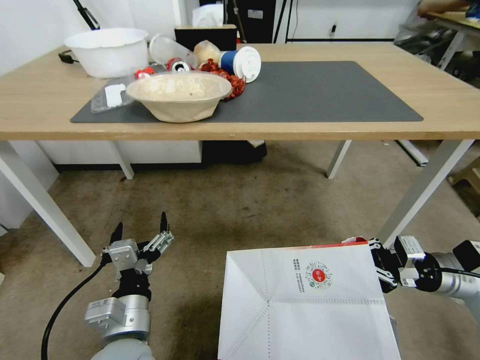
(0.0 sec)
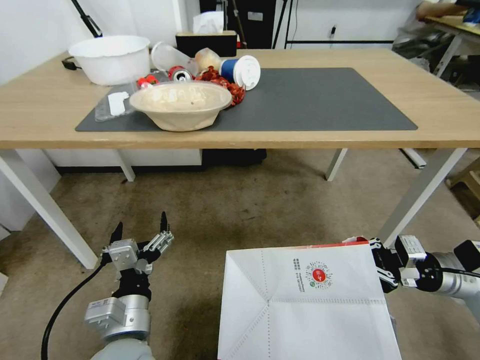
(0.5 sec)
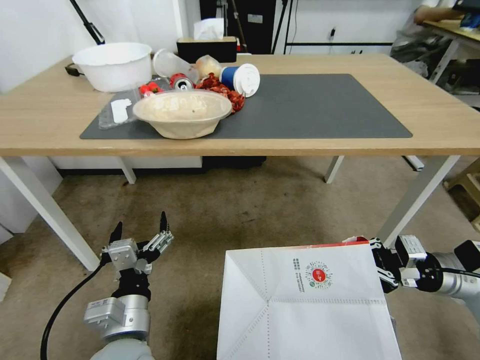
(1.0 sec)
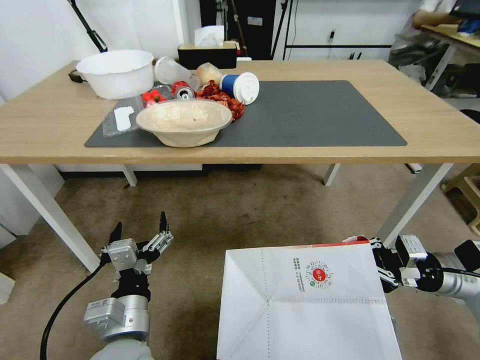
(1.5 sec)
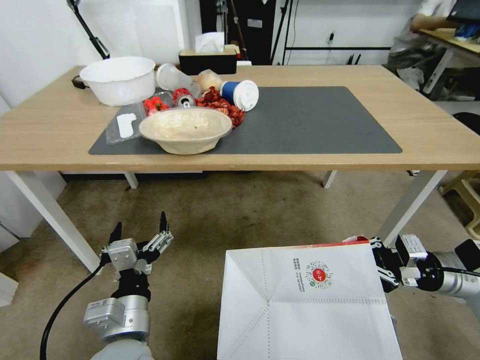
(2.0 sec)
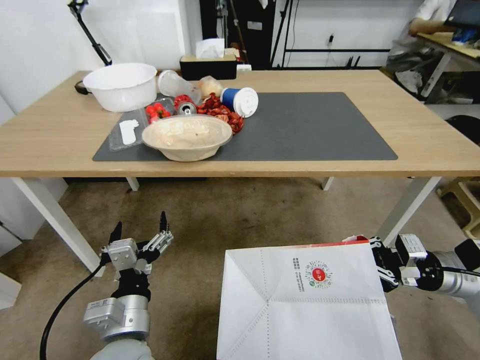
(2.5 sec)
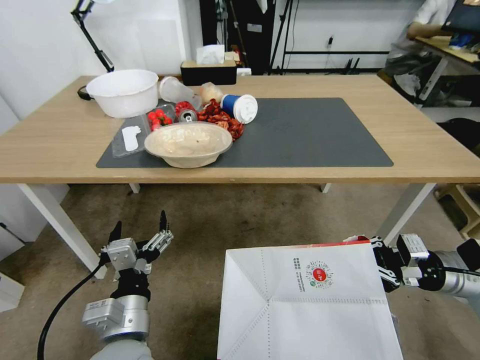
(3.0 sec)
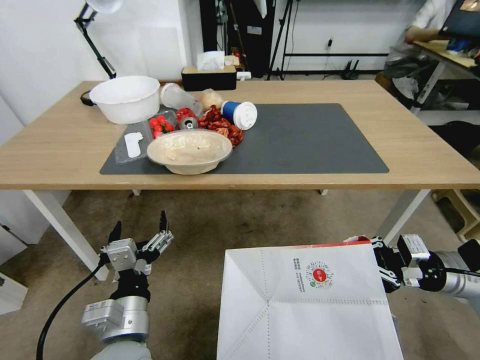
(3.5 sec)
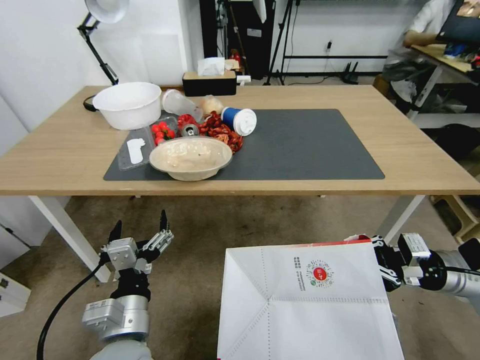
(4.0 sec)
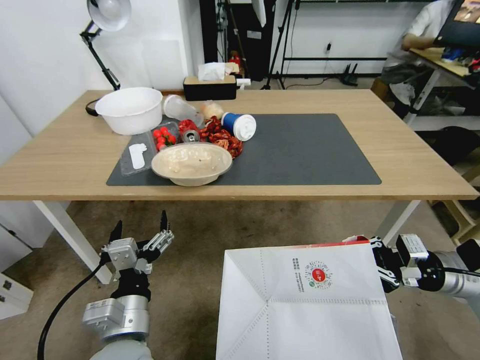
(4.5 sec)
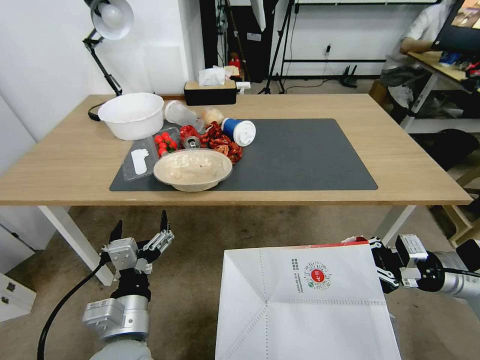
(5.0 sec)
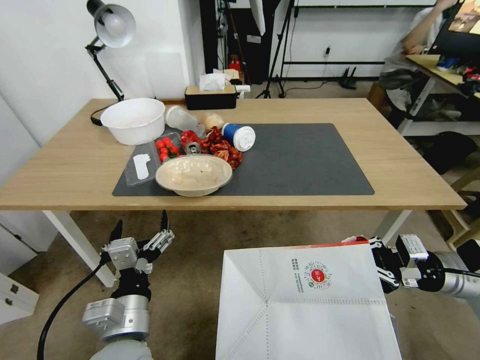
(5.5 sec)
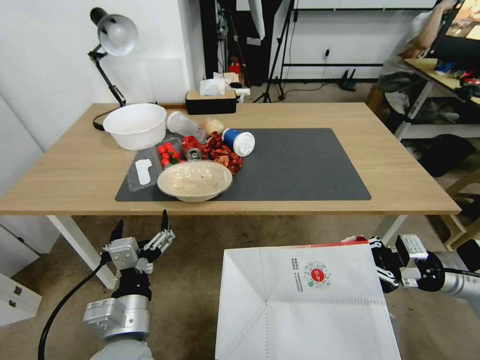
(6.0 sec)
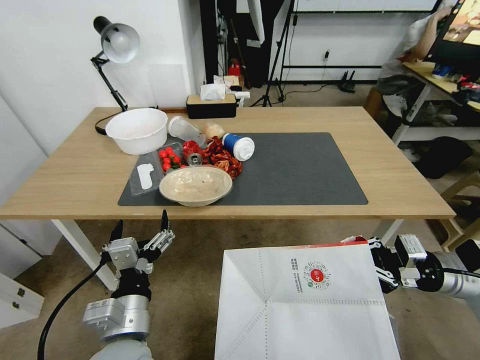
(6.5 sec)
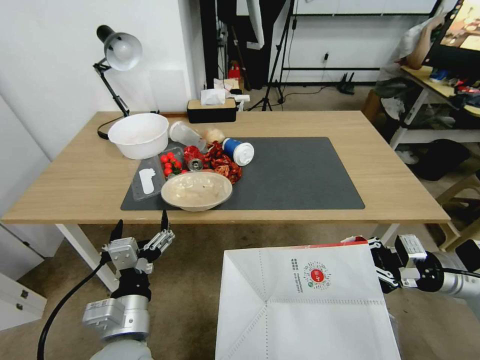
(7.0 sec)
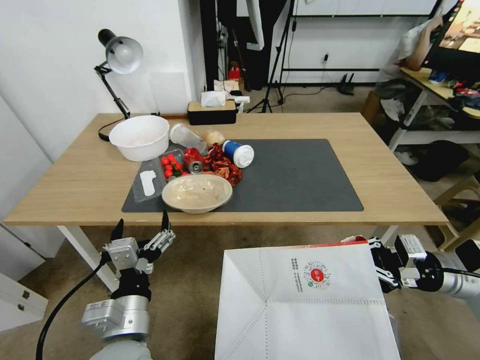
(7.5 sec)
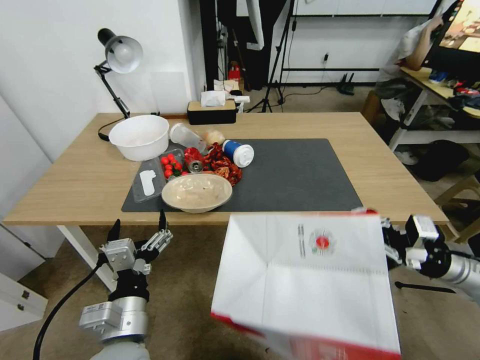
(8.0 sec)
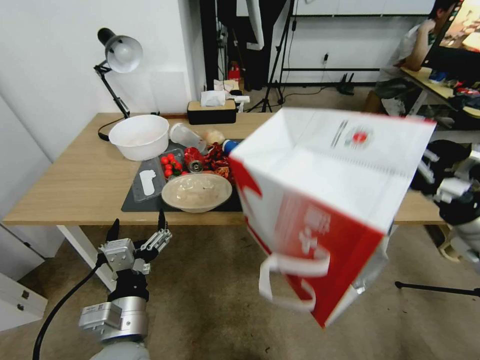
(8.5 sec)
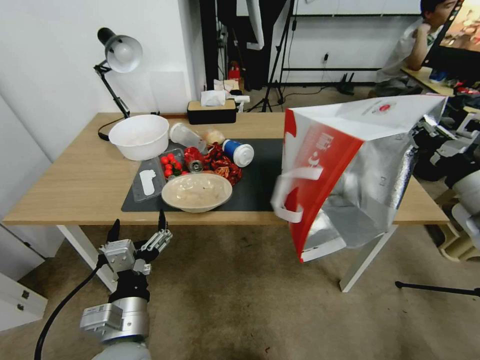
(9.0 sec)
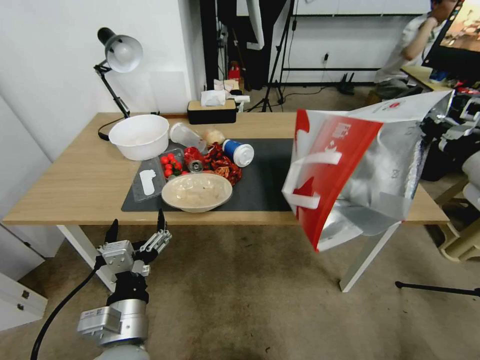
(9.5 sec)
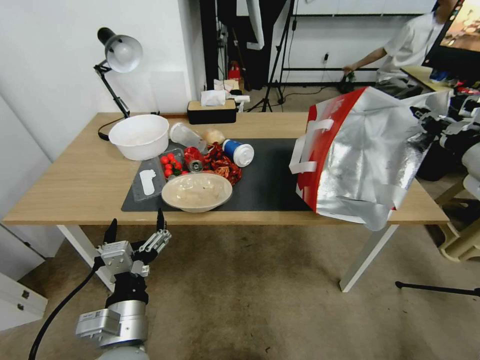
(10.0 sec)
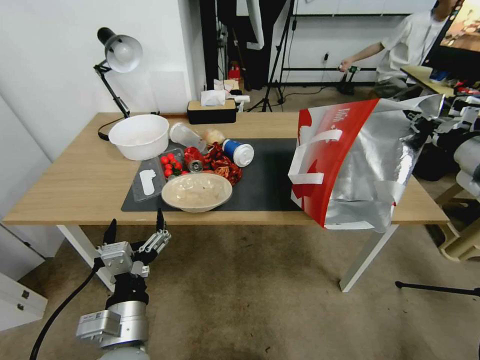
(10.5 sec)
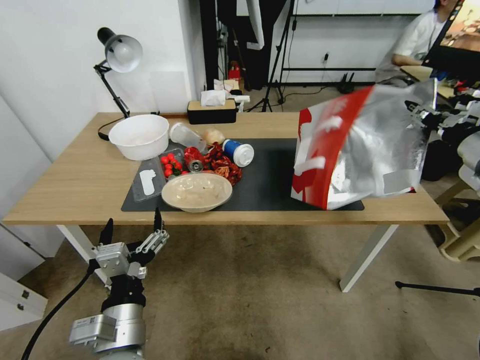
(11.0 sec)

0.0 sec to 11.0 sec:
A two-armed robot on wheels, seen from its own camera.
Task of the whole recording: Pick up the food delivery bag from the floor and place it on the table.
7.5 sec to 9.0 sec: The right gripper moves upward, approximately 15 cm.
9.0 sec to 11.0 sec: The right gripper is displaced forward by some 10 cm.

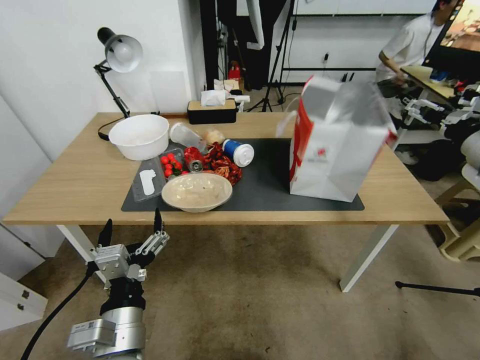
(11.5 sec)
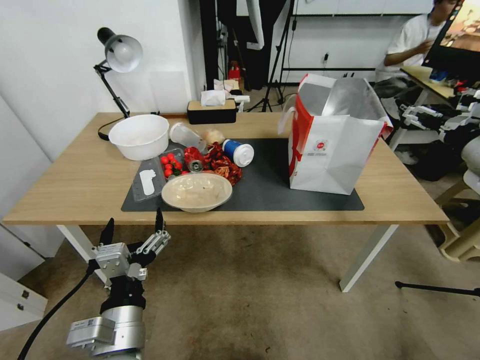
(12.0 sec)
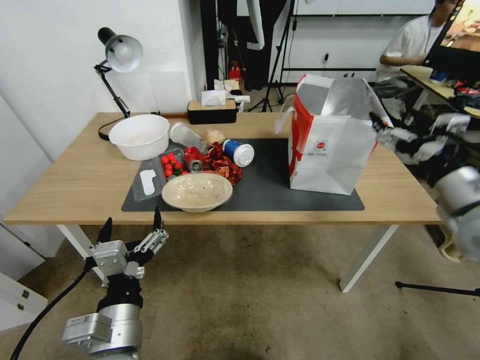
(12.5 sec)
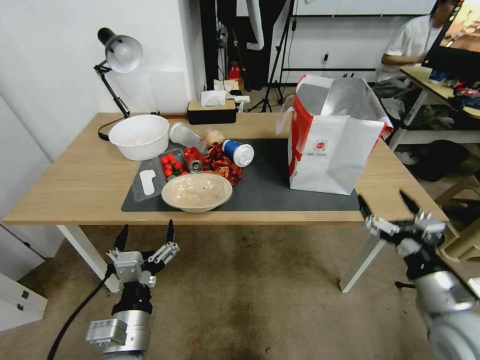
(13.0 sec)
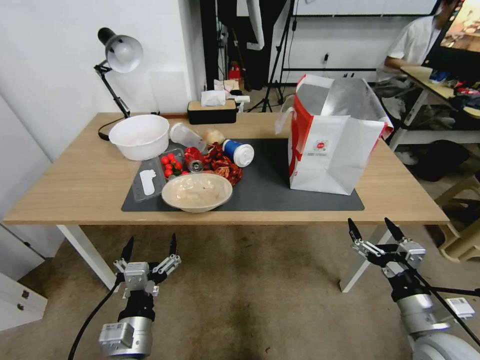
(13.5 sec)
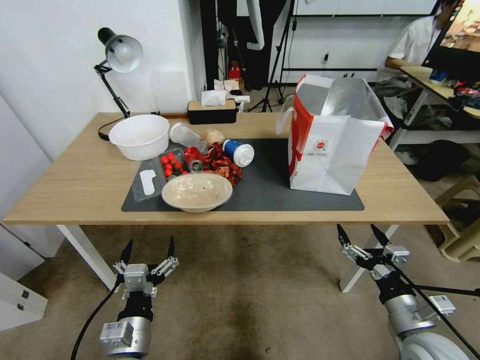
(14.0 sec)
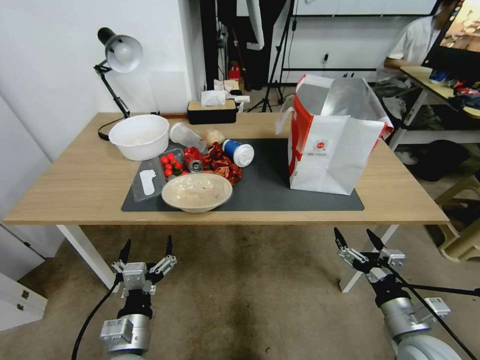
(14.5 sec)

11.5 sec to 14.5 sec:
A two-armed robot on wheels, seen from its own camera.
Task of the whole recording: Pick up the food delivery bag from the floor and place it on the table.
11.5 sec to 13.0 sec: The right gripper travels downward and backward by some 25 cm.
13.0 sec to 14.5 sec: The two grippers go about 10 cm downward.

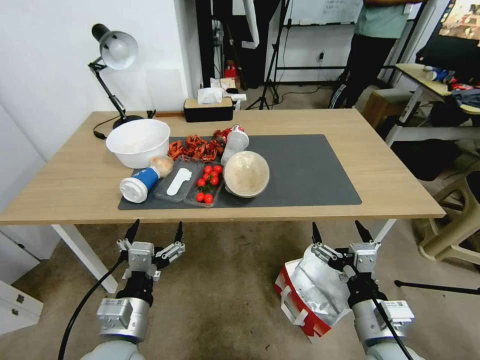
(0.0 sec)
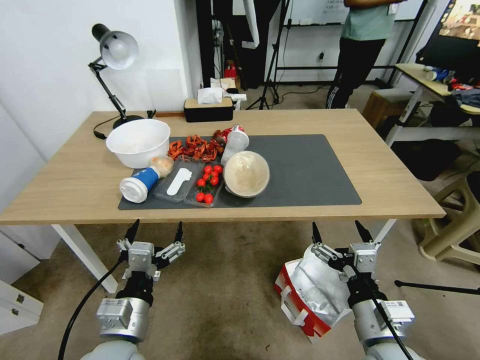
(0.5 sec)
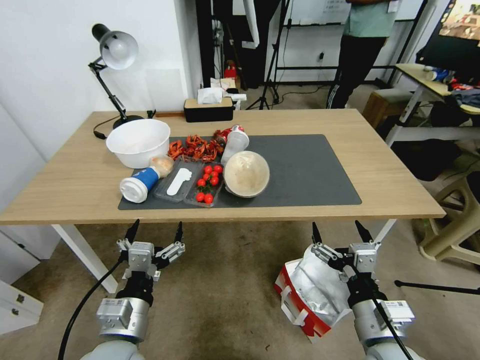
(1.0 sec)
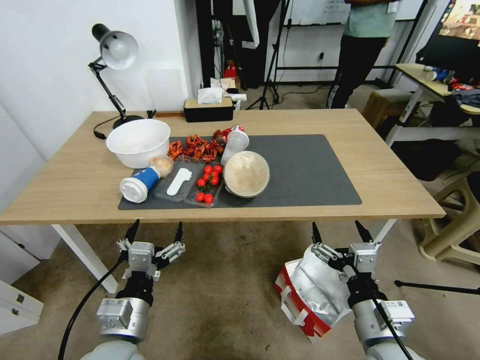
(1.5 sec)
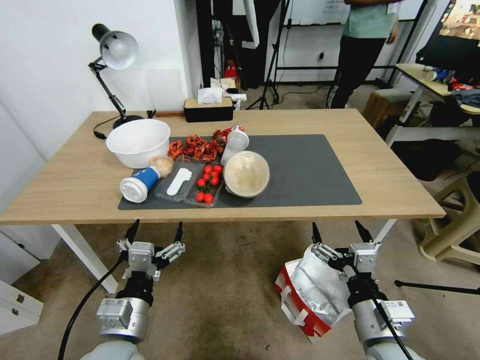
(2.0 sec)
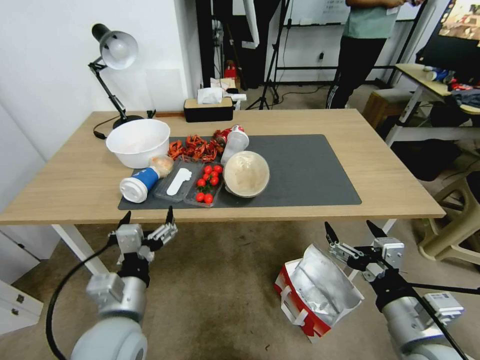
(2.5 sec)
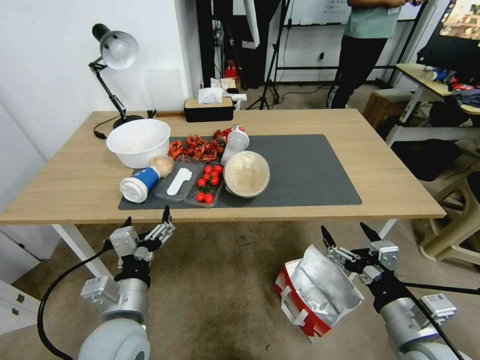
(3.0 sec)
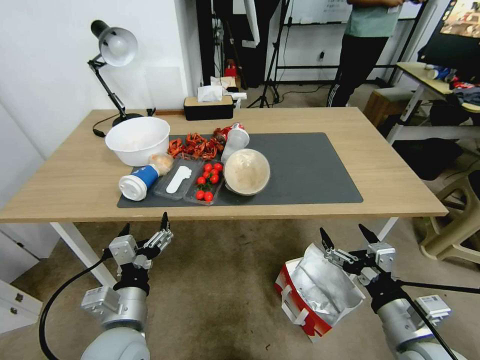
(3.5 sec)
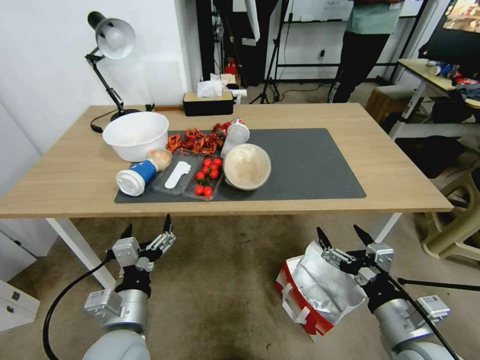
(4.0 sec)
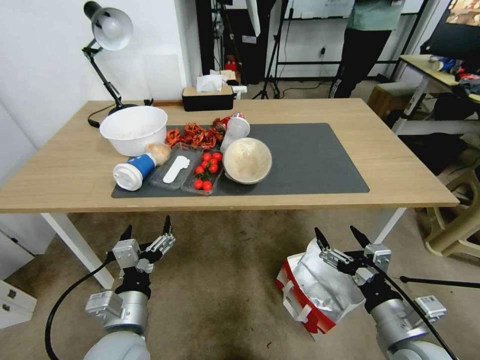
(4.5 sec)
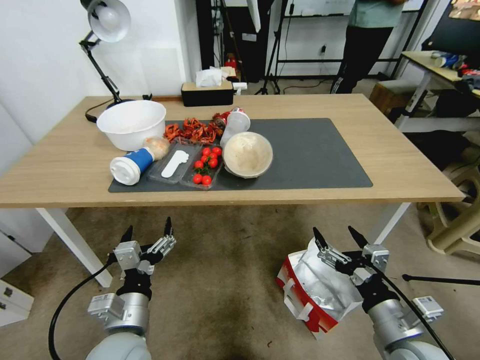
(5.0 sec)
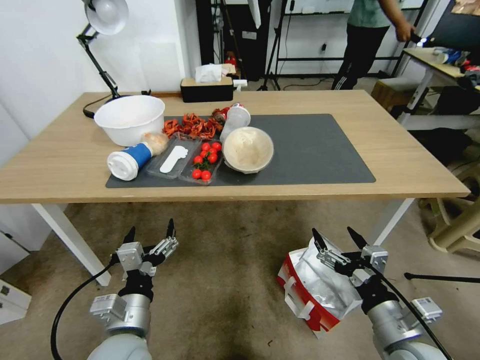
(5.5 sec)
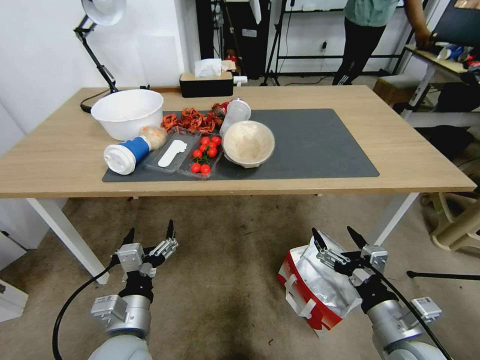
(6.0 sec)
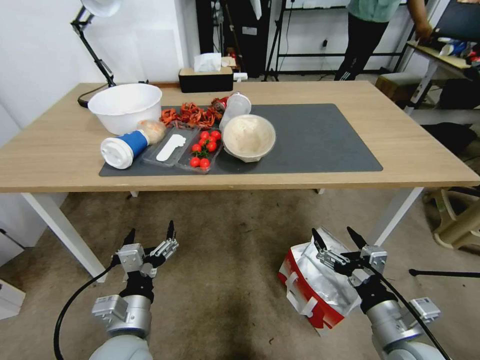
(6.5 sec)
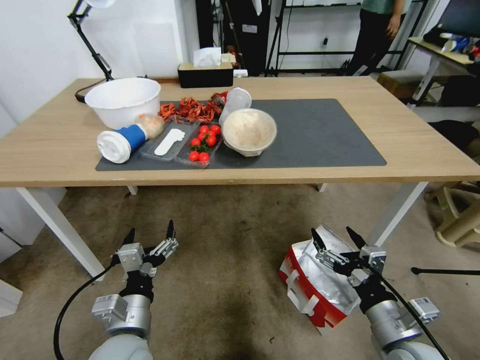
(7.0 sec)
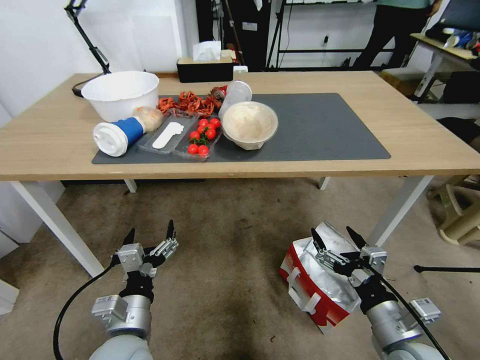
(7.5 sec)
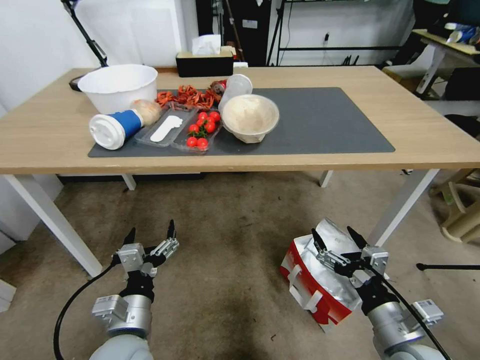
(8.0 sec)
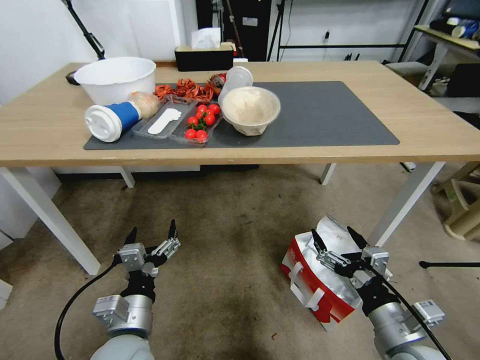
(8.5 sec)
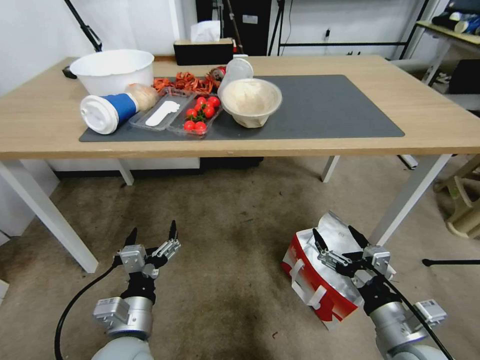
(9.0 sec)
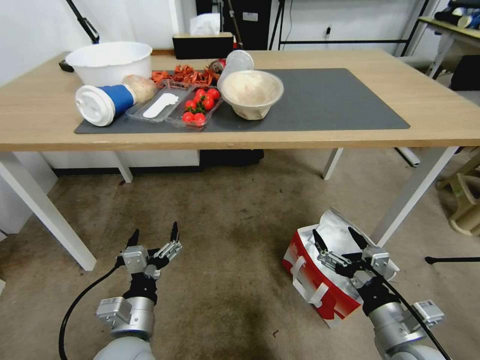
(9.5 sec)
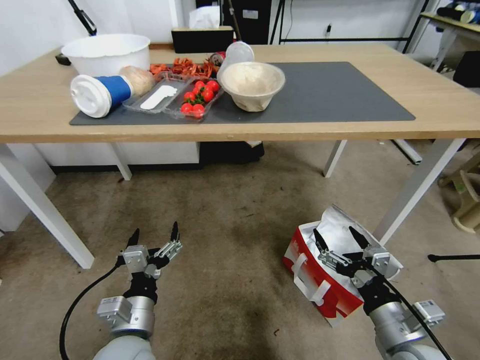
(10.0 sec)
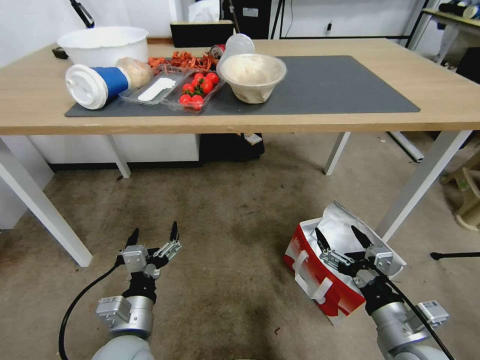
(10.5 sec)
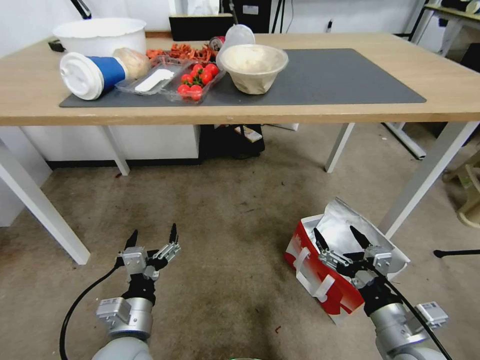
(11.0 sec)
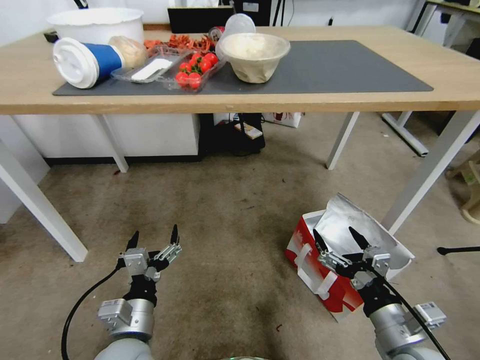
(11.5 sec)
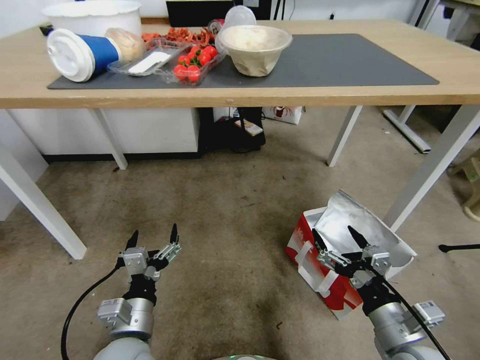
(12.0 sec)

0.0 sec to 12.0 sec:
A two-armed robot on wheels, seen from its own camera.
Task of the whole recording: Pick up the food delivery bag from the floor and place it on the table.
2.0 sec to 4.0 sec: The right gripper goes approximately 5 cm to the right.
